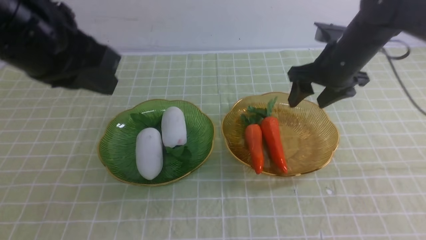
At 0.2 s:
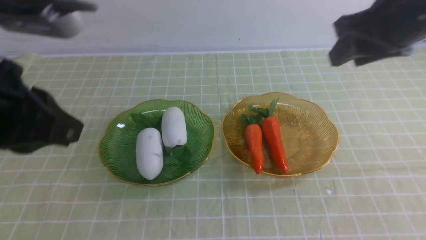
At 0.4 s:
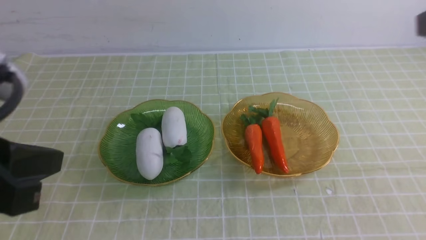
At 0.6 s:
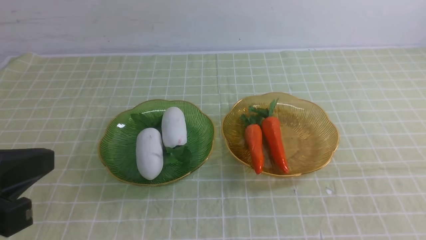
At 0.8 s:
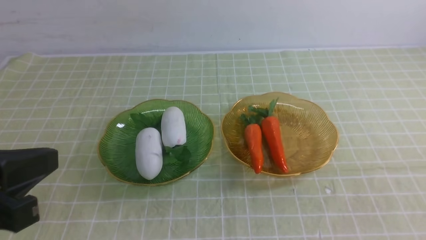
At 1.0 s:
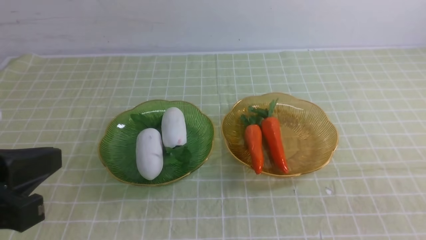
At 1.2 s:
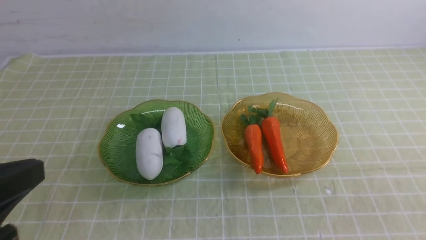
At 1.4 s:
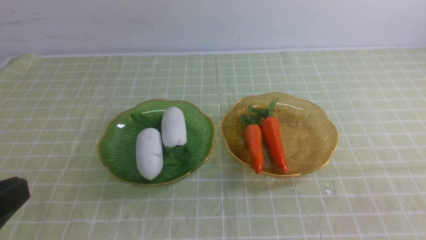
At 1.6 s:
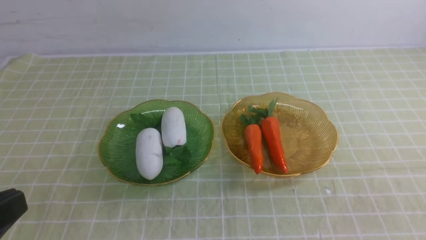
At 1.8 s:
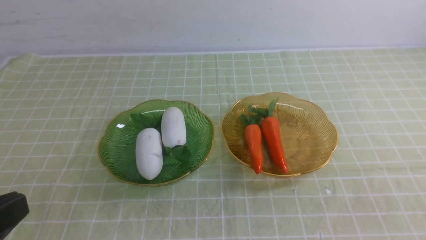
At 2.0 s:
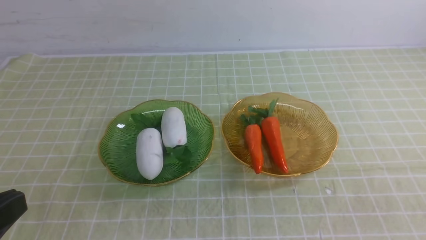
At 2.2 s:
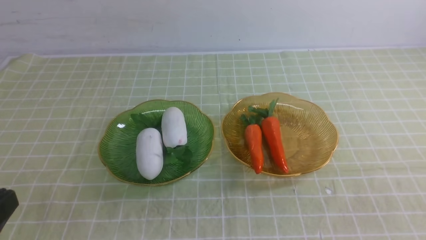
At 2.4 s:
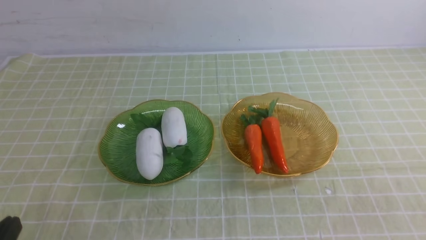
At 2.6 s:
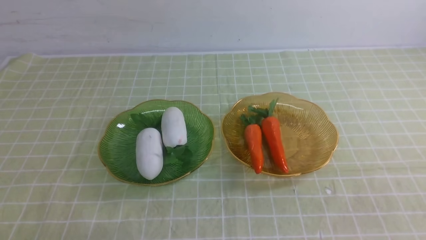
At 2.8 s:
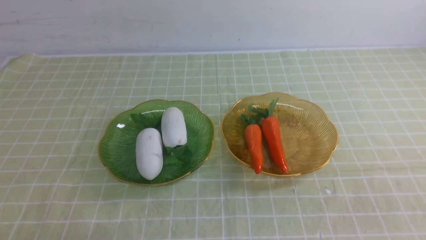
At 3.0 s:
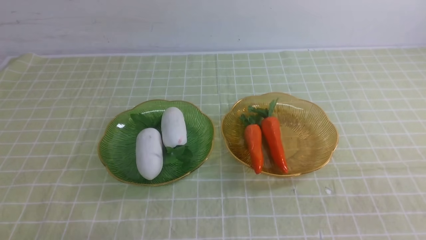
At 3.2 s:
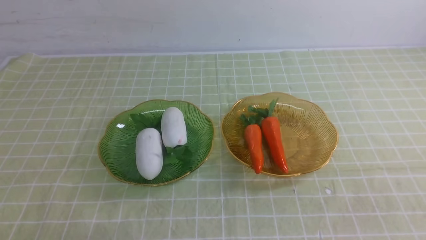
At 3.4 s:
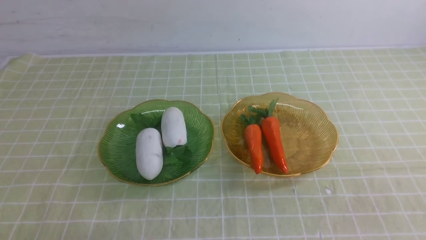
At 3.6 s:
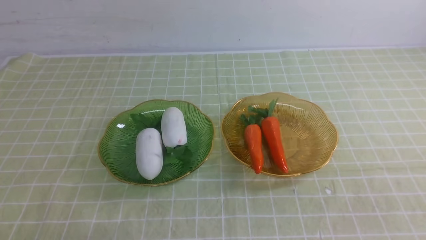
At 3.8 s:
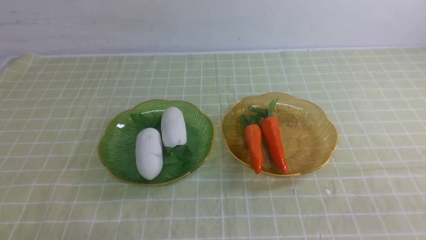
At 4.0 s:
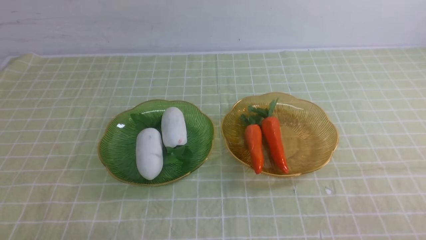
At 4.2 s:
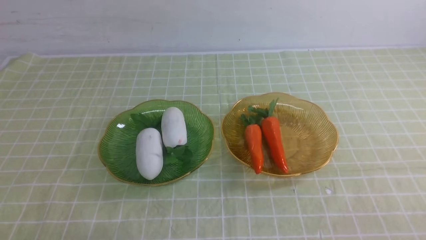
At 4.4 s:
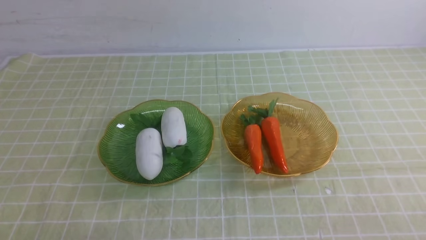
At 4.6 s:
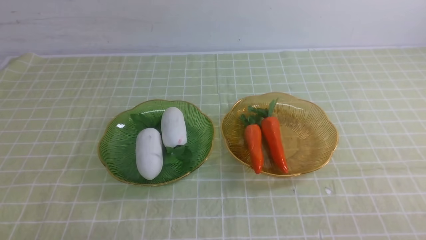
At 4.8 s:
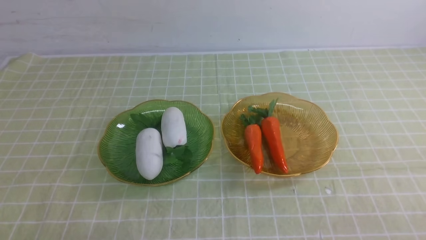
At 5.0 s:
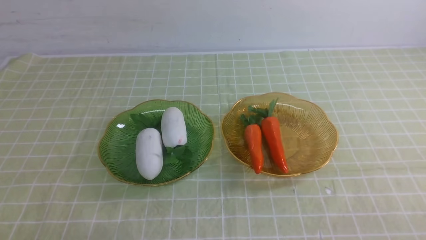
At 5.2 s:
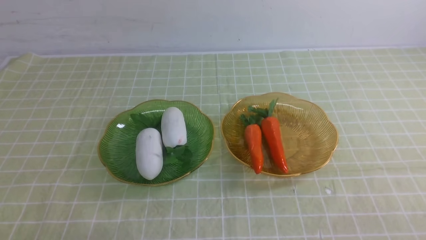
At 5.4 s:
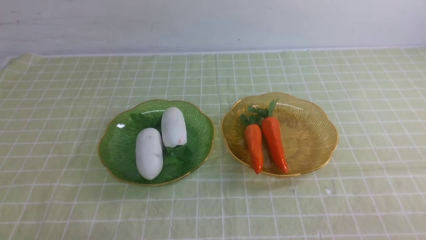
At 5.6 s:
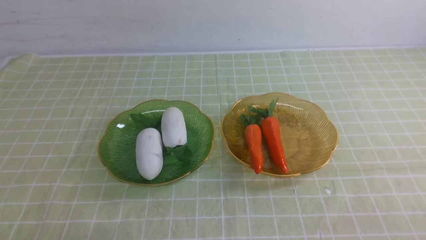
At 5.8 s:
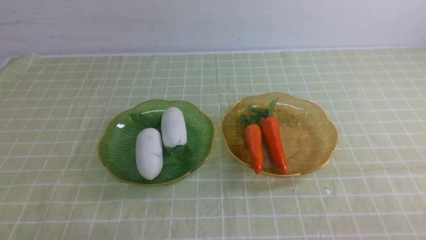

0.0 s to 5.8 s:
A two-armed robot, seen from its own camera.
0.0 to 1.4 s: The left gripper is displaced backward and downward by about 20 cm, while the right gripper shifts some 35 cm backward, and closes up.
1.4 to 2.8 s: The left gripper shifts some 15 cm downward.
4.4 to 5.8 s: The two grippers keep their place.
